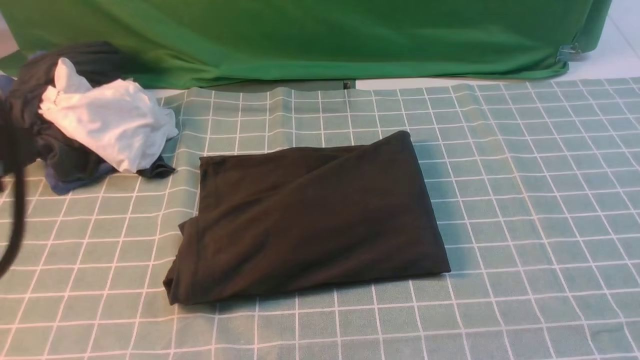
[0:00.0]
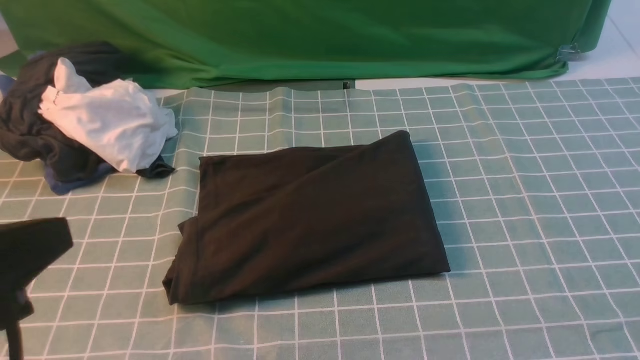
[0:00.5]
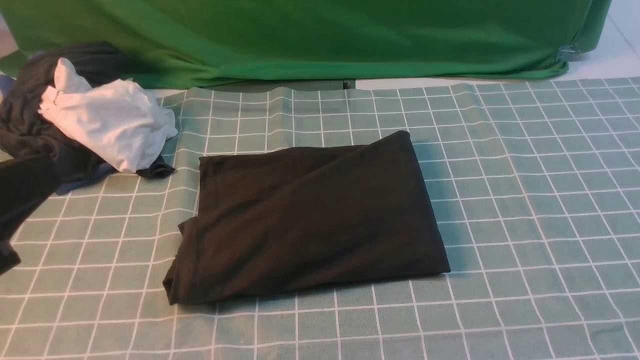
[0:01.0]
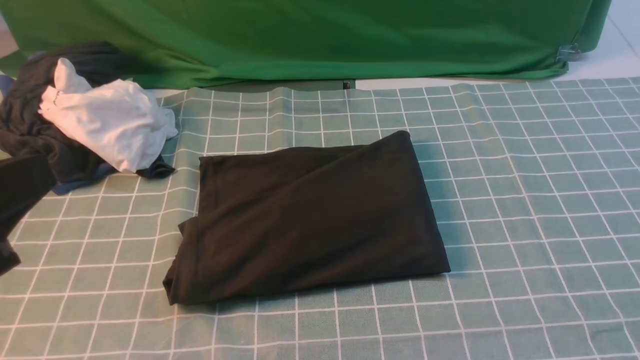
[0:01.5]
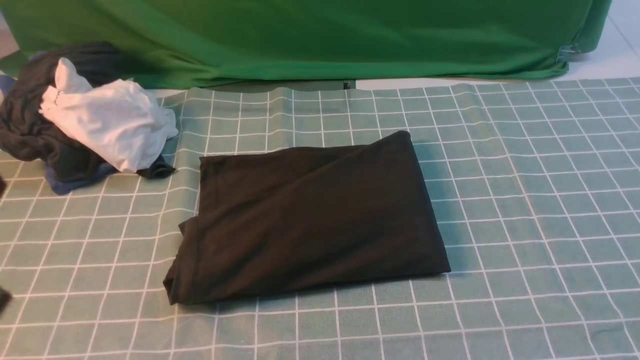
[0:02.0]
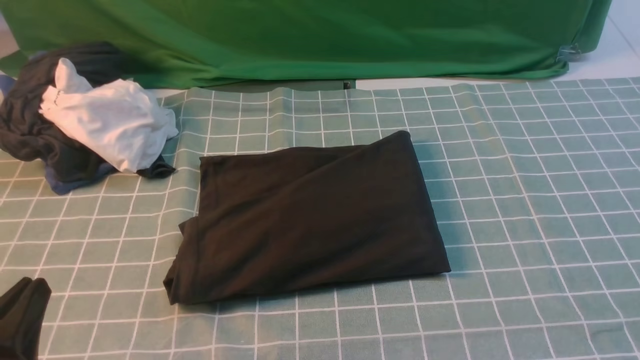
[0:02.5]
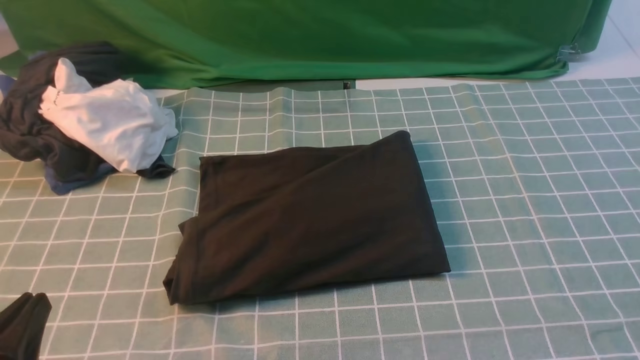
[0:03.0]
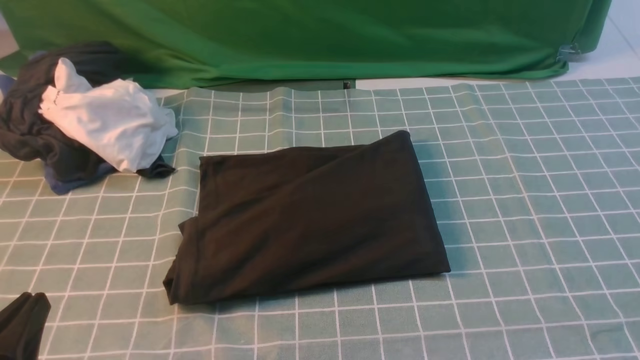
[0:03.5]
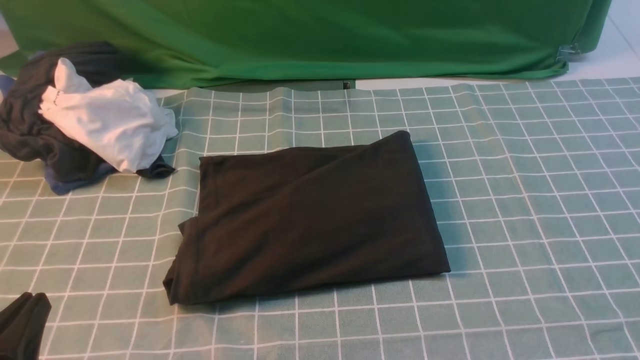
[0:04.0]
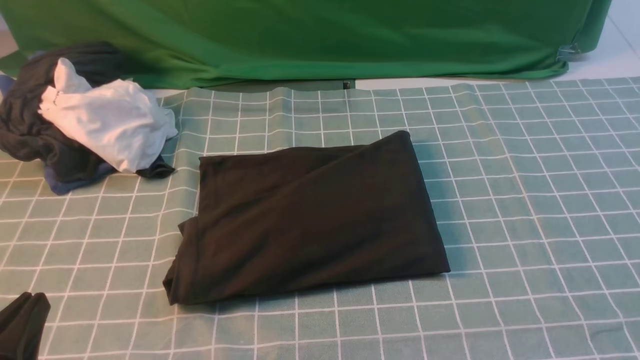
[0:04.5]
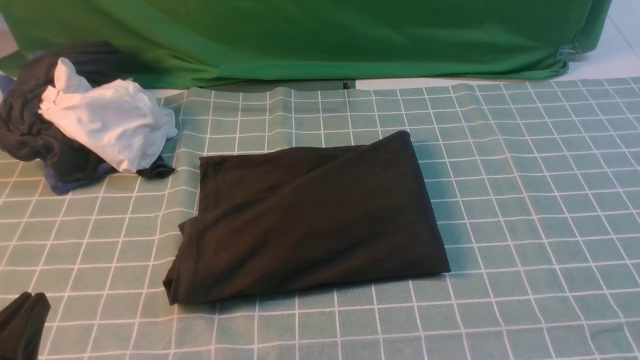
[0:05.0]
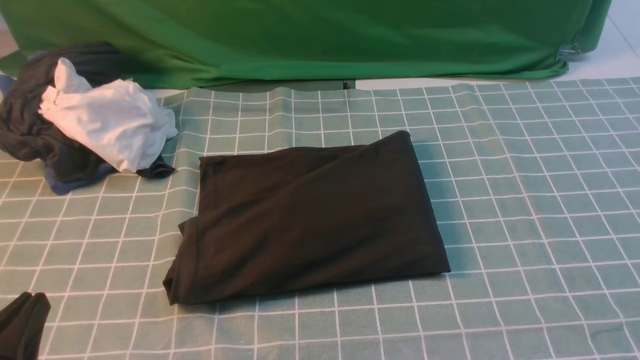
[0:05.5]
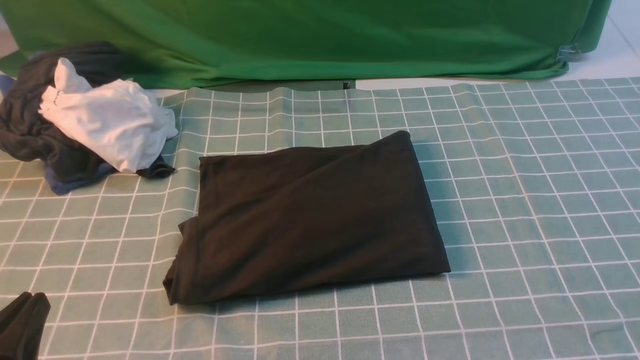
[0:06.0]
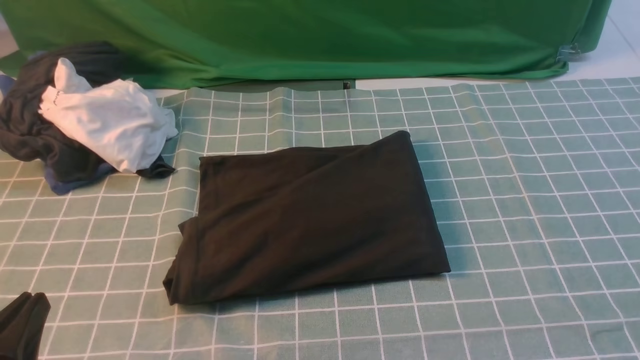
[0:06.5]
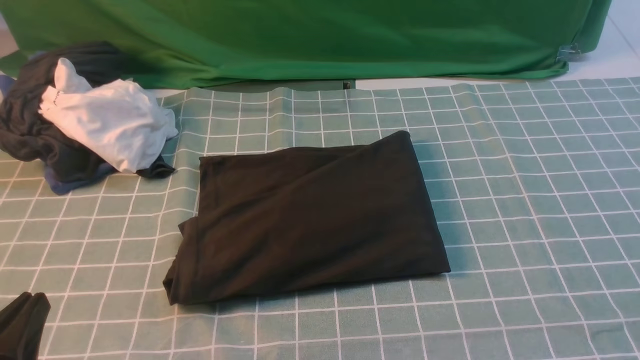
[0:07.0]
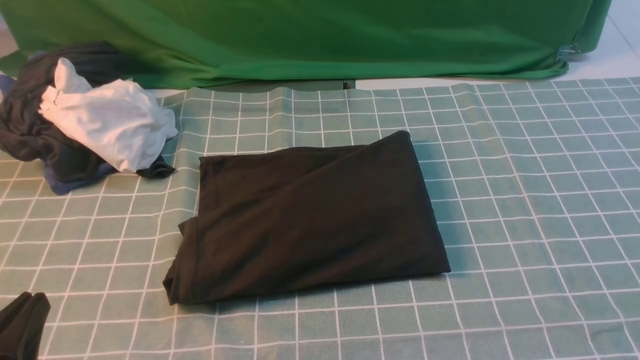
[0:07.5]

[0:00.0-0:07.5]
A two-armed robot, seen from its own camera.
0:00.0 to 0:02.0: The left gripper moves downward, about 10 cm.
0:02.0 to 0:04.0: The left gripper travels downward by about 10 cm.
0:05.5 to 0:07.5: Both grippers stay about where they are.
